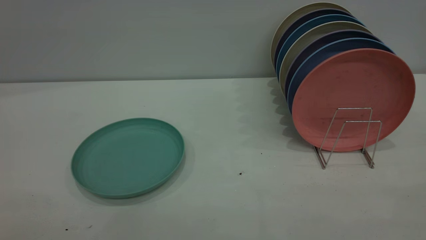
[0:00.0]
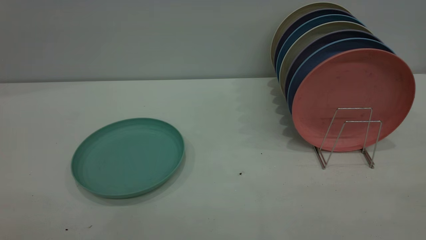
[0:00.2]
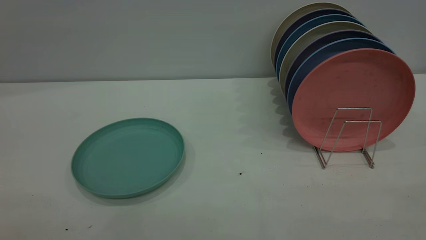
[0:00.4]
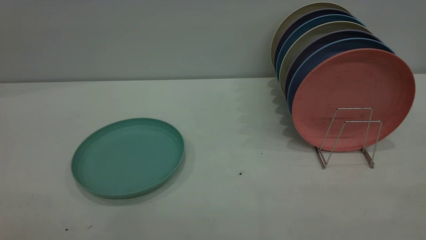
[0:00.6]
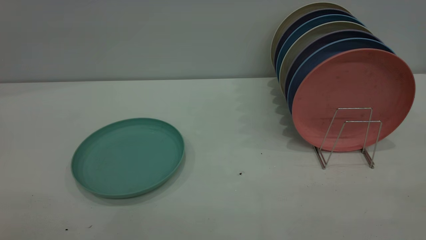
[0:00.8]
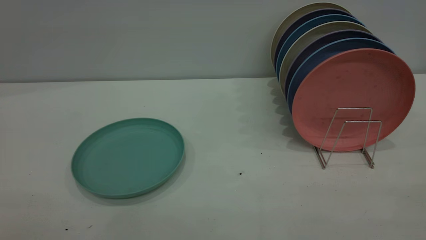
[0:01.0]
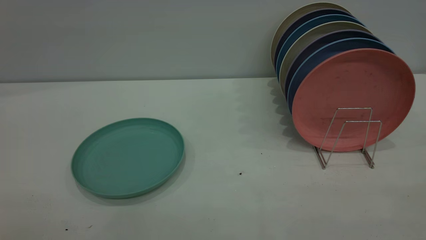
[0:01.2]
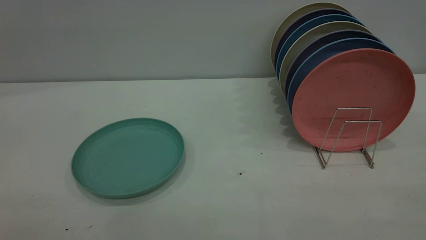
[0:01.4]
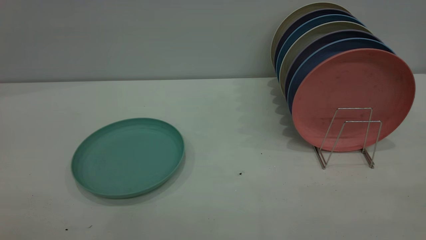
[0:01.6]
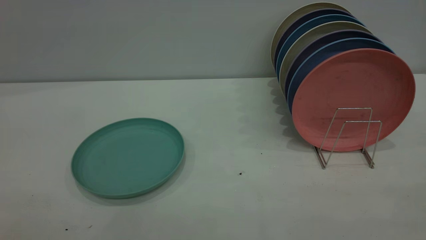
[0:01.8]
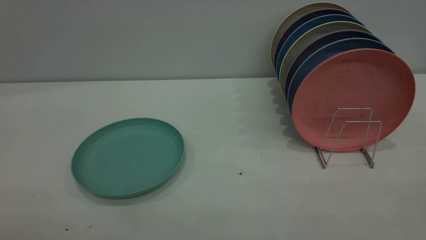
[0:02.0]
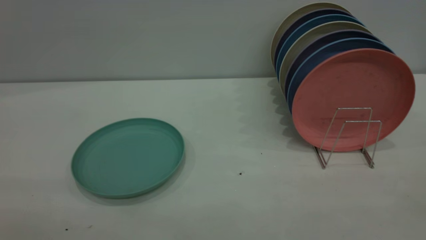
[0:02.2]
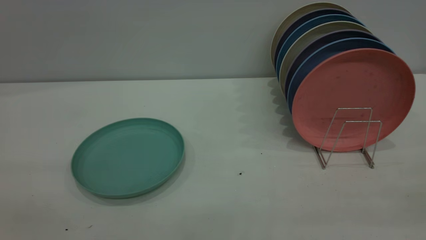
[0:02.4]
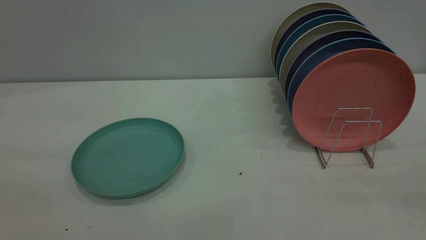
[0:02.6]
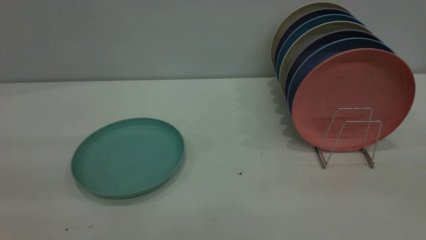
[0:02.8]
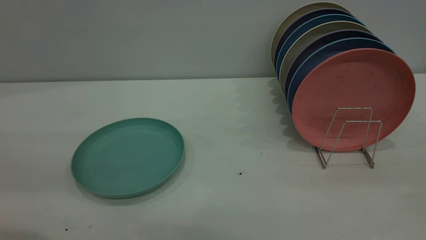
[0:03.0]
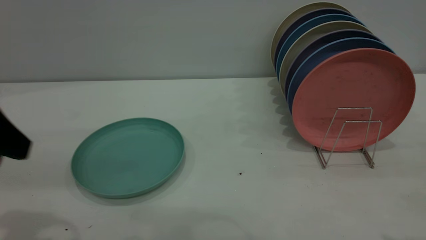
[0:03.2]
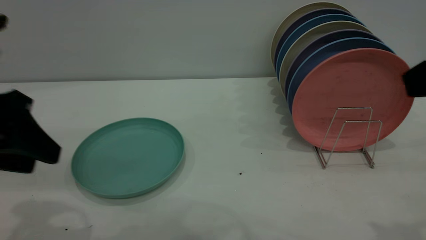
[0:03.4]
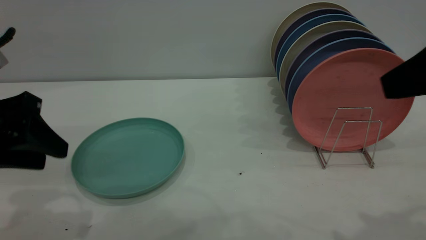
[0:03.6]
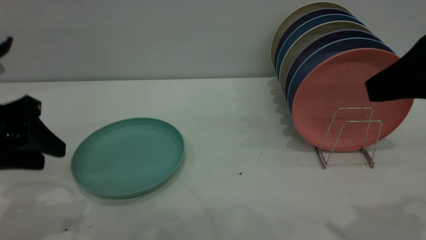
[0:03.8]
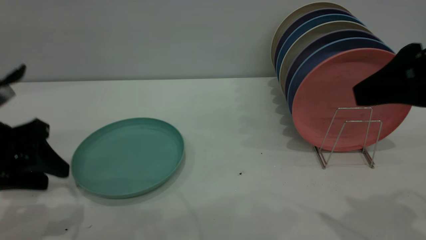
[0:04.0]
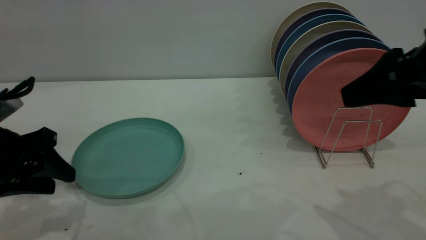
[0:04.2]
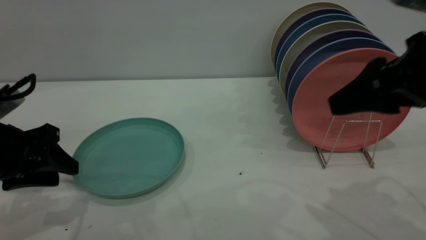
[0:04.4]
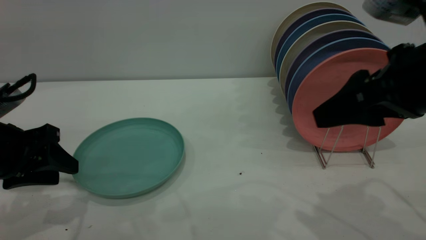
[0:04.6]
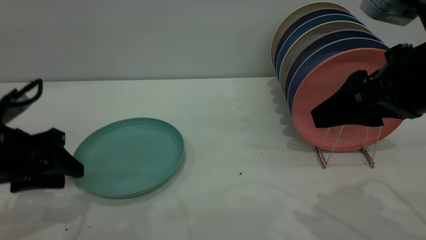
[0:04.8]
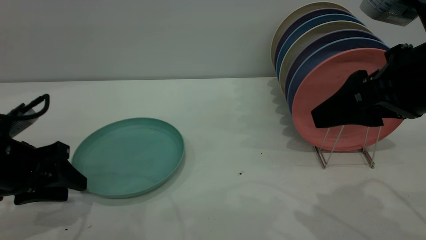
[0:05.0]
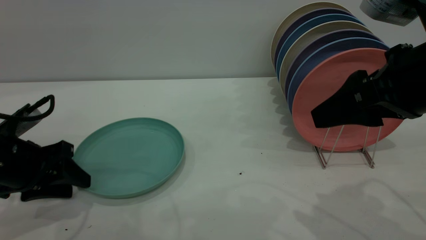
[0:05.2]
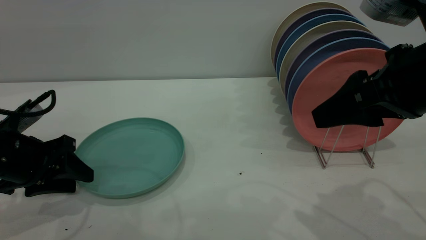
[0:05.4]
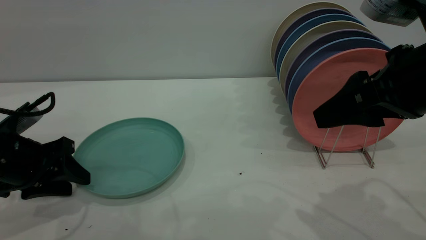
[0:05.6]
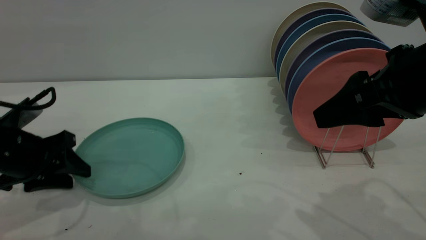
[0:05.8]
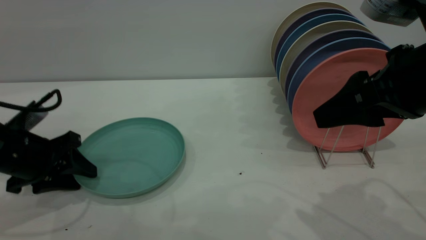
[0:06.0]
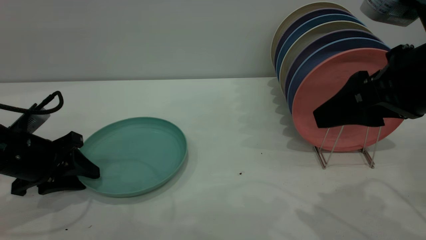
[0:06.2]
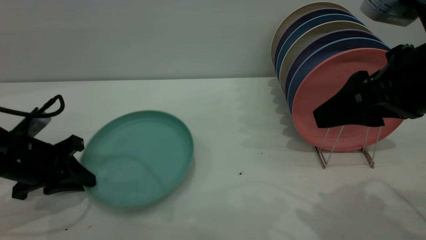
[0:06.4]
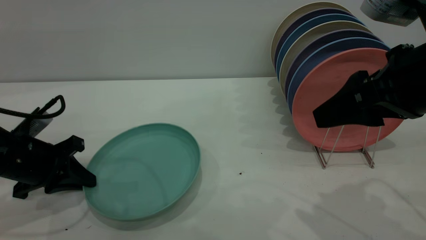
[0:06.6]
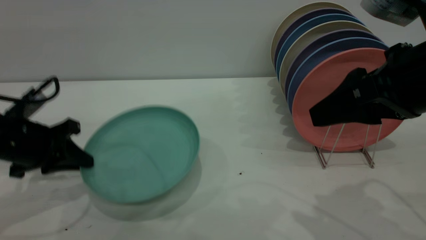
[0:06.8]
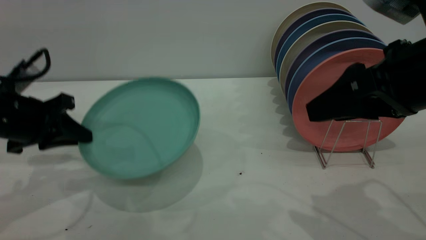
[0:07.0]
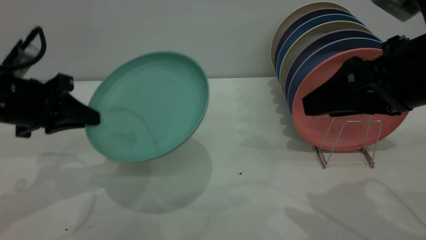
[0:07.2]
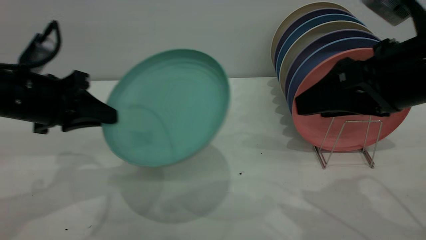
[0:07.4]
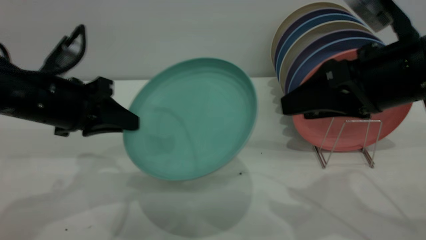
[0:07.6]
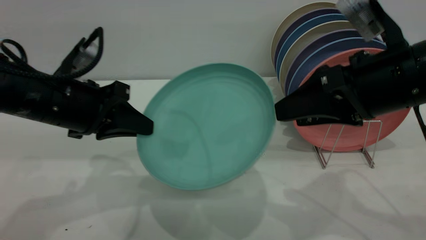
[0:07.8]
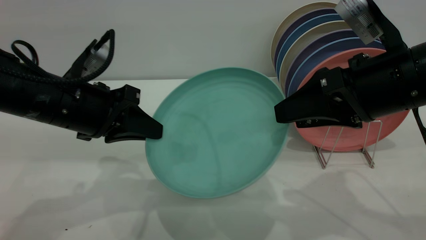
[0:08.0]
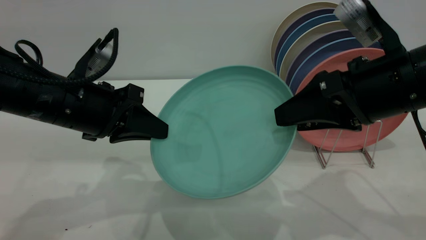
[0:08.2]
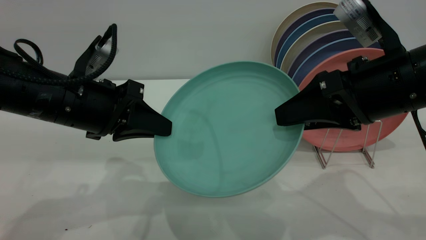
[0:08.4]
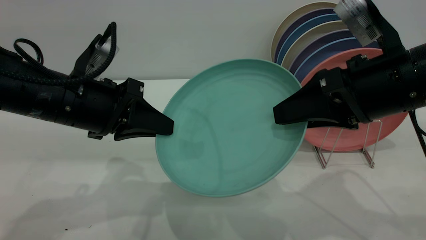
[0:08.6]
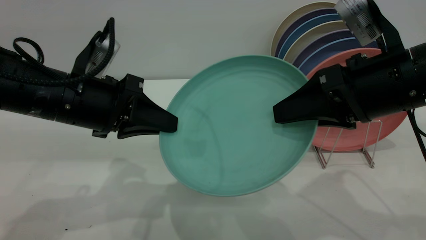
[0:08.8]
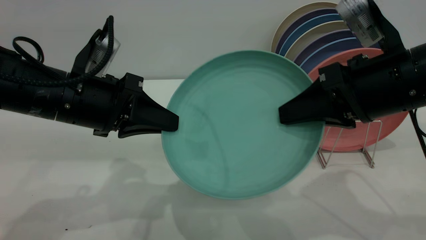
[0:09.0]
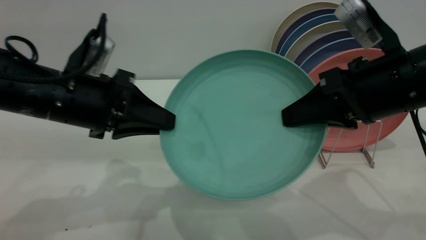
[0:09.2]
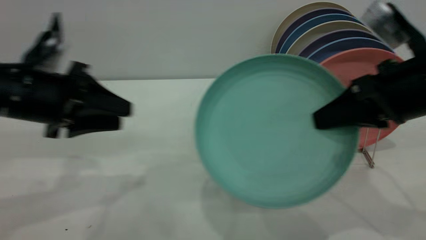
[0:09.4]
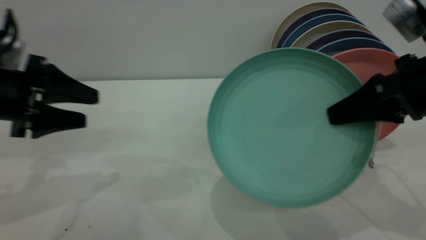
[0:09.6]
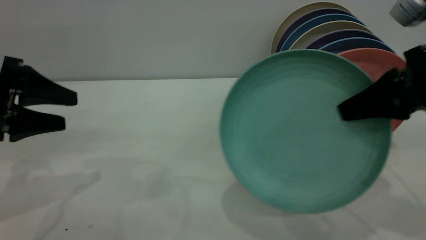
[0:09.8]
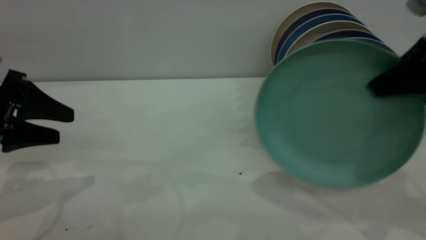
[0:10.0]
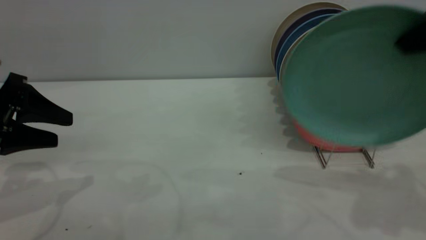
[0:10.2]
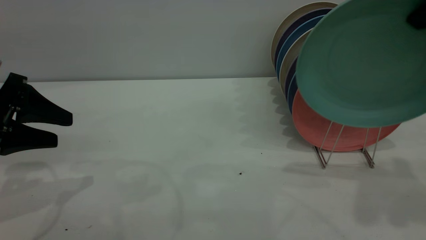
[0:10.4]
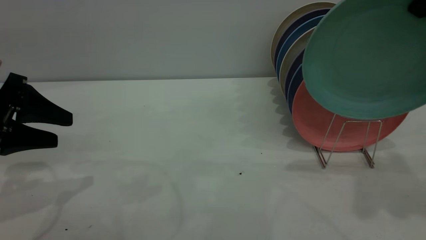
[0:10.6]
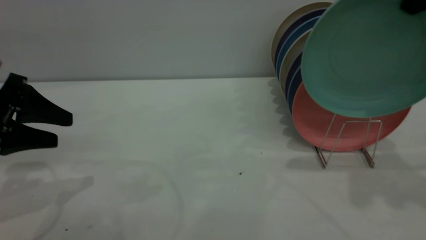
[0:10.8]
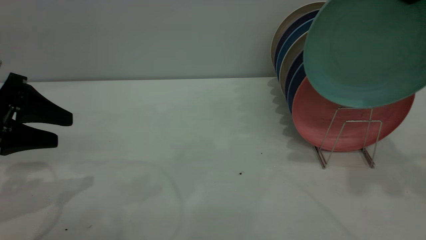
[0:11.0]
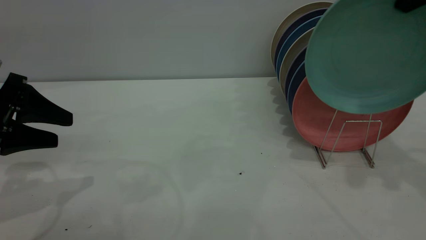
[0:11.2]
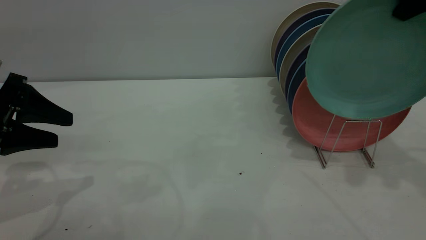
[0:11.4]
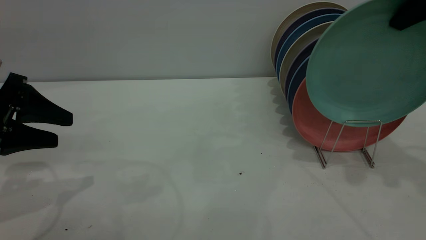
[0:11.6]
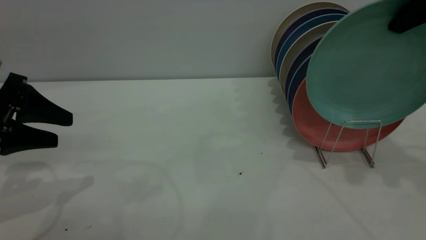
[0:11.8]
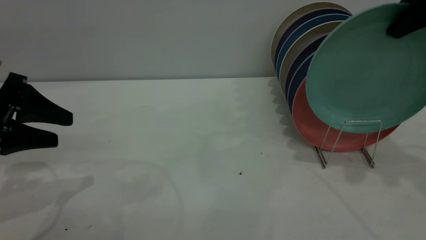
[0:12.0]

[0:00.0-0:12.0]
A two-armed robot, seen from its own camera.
Task of the whole recording: the left gripper grasp the green plate, the left gripper pass the green plate to the right gripper, and the right gripper place the green plate on the plate rack.
Step, 0:00.0 to 0:06.8: Pick up the plate with the left gripper.
Step, 0:07.0 to 0:09.2: Pass the plate from the left gripper to the right gripper.
0:00.0 to 0:01.6: The two grippers keep their place.
0:03.0 to 0:04.4: The right gripper travels forward and downward by roughly 15 cm, while the left gripper moves downward and forward, roughly 20 cm.
0:04.4 to 0:06.0: The left gripper is displaced downward by roughly 5 cm.
0:06.0 to 0:07.6: The left gripper heads upward and to the right, covering some 10 cm, and closes.
0:07.6 to 0:09.0: The right gripper closes up.
0:09.0 to 0:10.4: The right gripper travels upward and to the right by about 15 cm, while the left gripper goes some 15 cm to the left, and opens up.
0:10.4 to 0:12.0: The right gripper heads forward, covering about 10 cm.

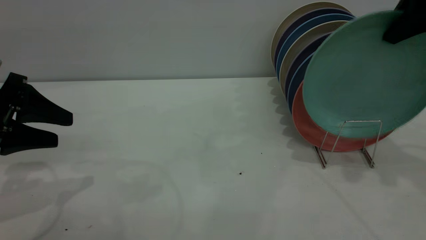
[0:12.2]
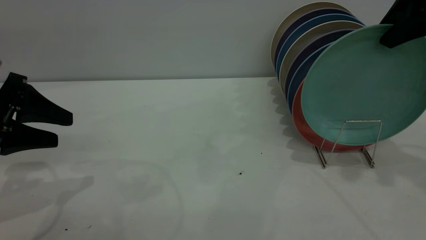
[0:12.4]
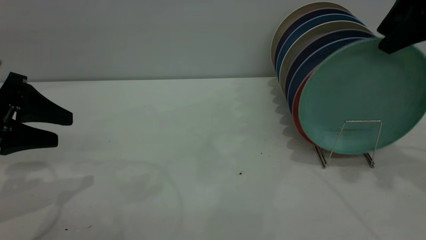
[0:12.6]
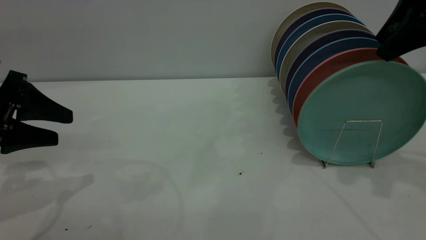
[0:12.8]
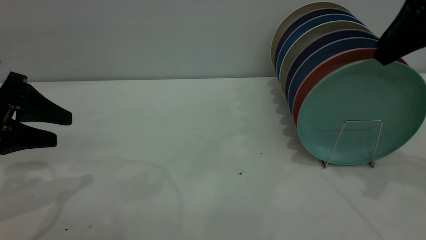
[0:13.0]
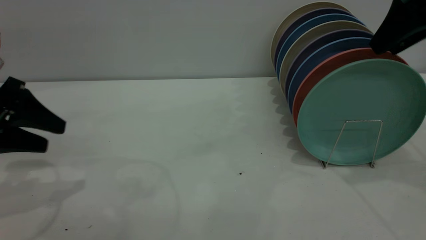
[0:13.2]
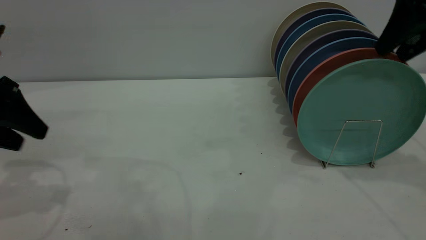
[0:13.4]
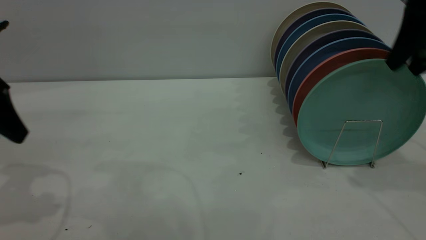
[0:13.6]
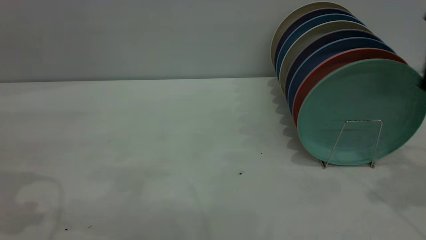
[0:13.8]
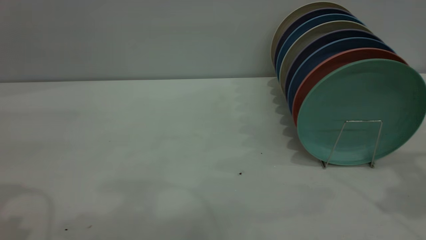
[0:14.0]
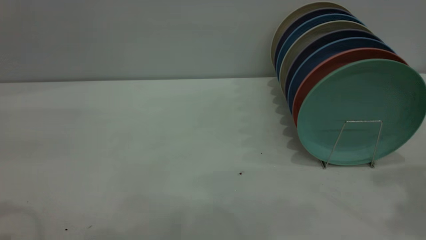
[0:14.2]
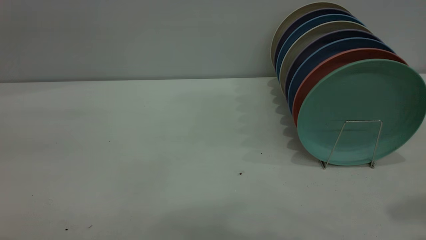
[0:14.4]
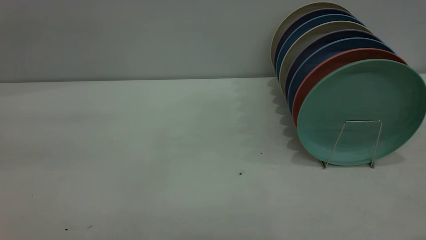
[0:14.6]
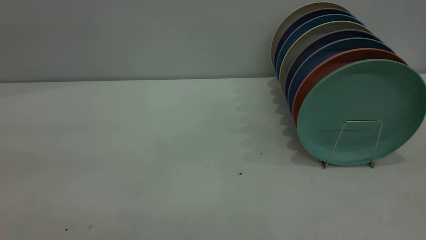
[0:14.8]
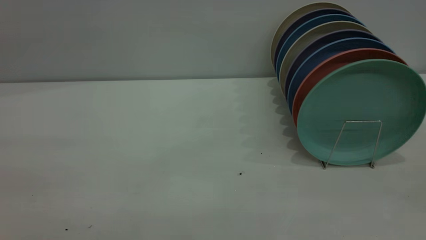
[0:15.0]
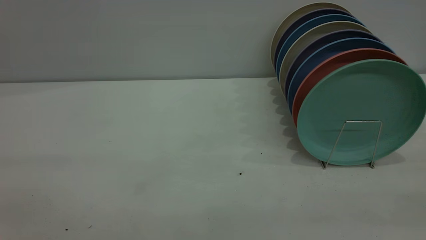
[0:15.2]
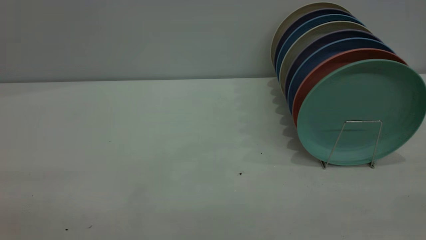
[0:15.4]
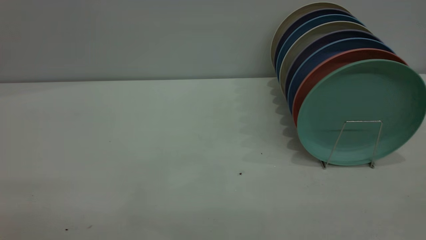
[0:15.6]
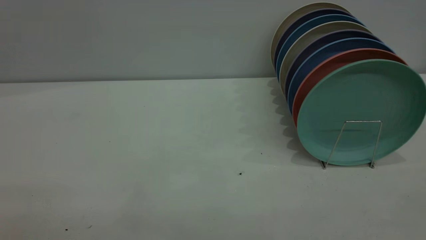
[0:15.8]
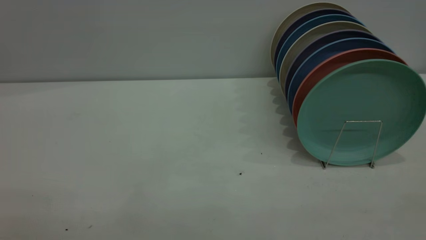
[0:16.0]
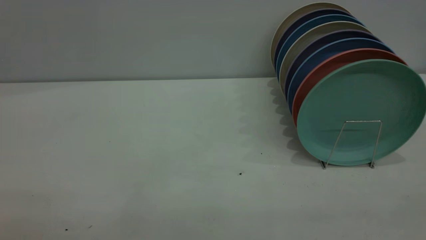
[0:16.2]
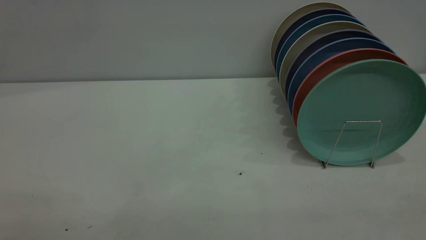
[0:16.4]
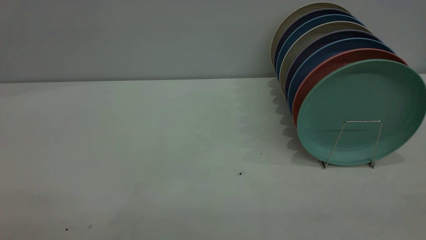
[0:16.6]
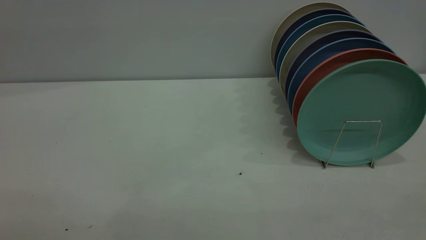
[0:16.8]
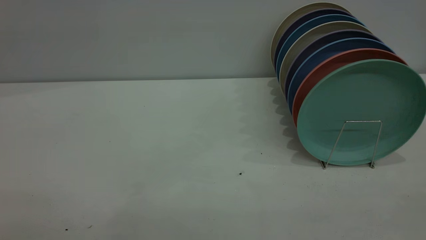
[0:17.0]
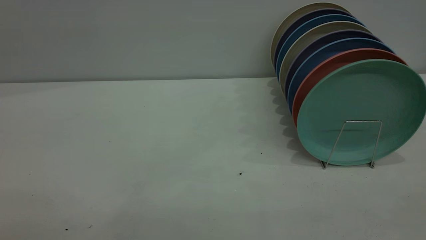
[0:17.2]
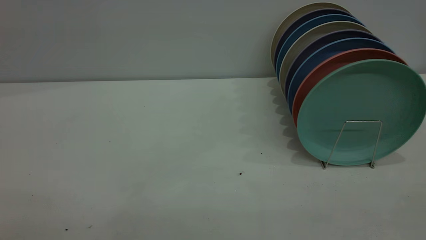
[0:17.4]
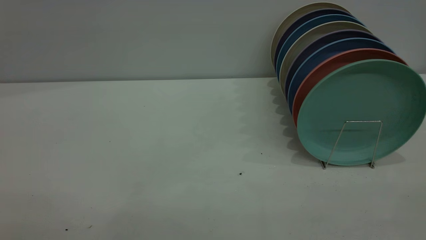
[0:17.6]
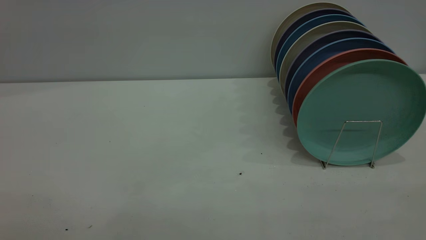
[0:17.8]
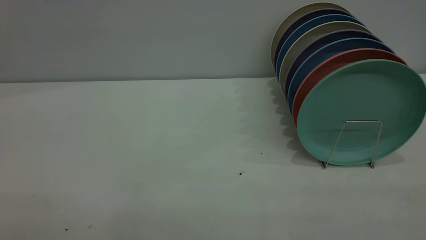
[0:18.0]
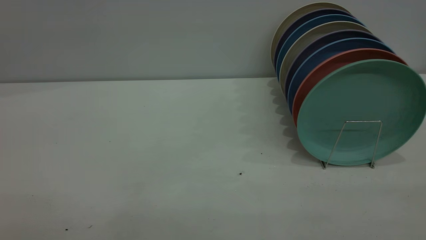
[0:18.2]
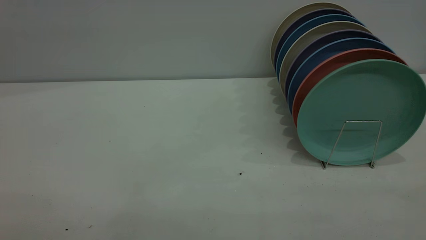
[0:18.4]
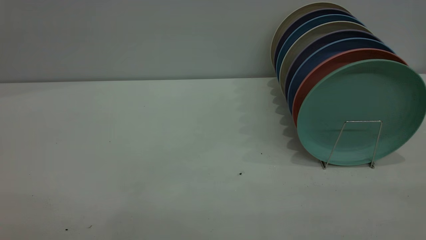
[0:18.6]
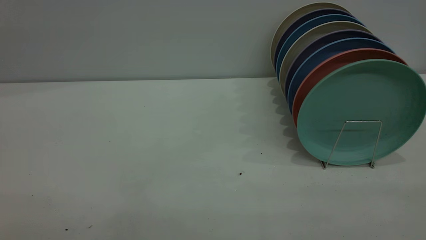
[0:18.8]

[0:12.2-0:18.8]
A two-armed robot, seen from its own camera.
Task of the whole recording: the left gripper grasp the green plate, the left gripper pass the green plate to the right gripper, and the right gripper place the green plate on the plate rack.
0:12.2 to 0:13.8: The left gripper moves upward, some 10 cm. The right gripper opens up.
